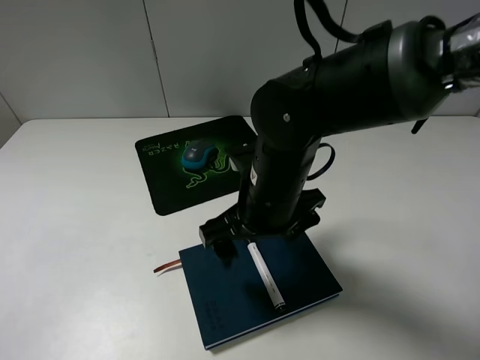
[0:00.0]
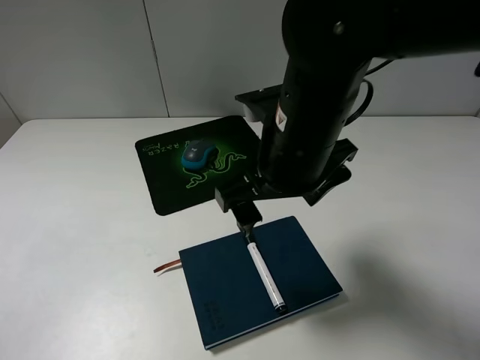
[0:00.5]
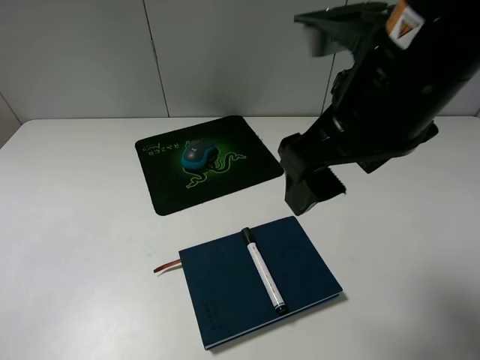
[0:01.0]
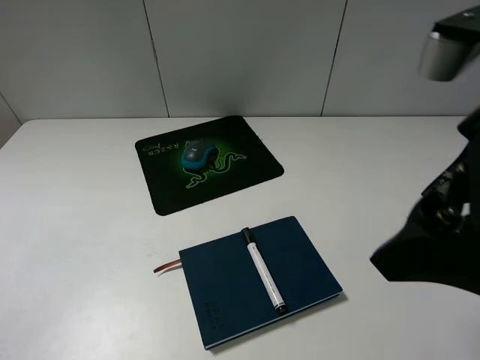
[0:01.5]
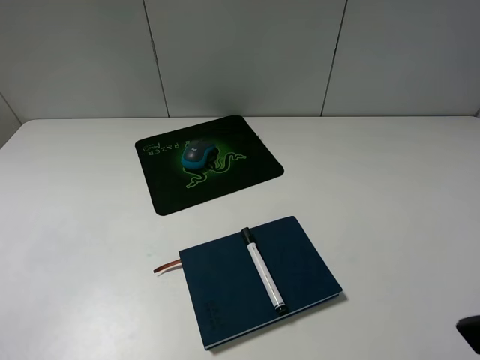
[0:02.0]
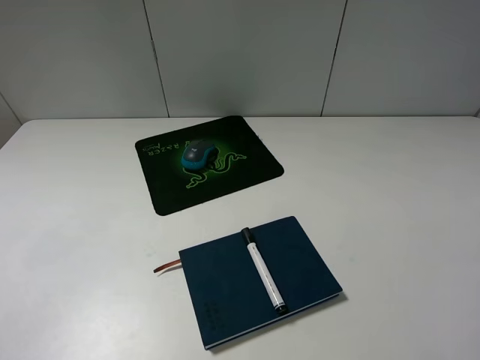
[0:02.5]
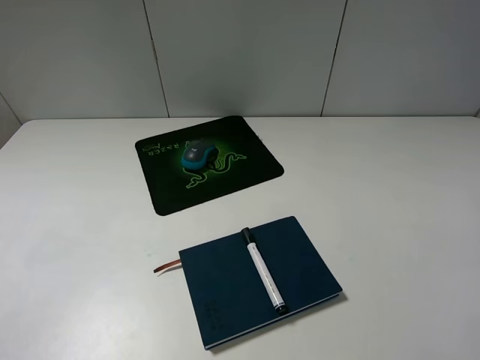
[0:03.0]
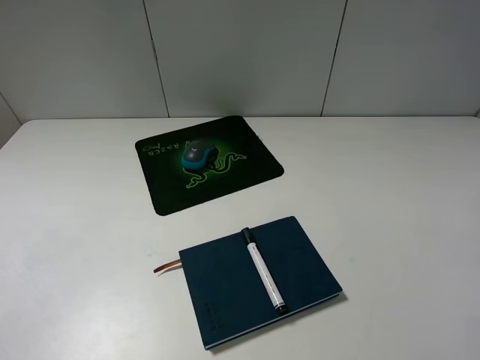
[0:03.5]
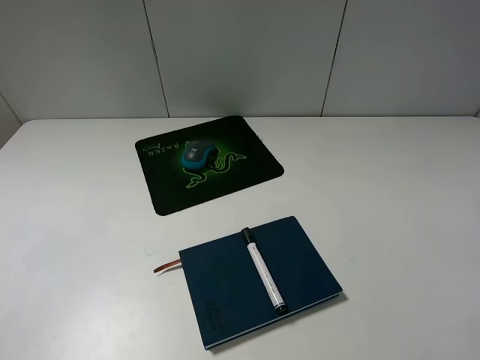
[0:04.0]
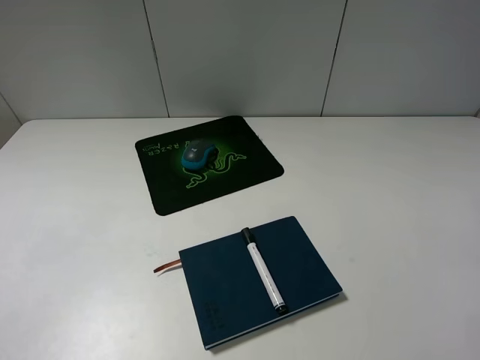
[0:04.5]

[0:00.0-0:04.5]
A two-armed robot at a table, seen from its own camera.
0:00.0 to 0:02.0: The right gripper goes about 30 cm to the right, backward and upward.
